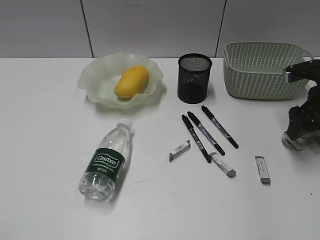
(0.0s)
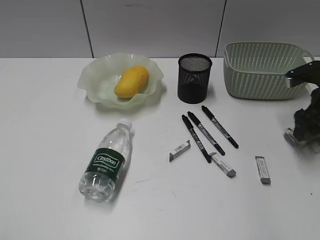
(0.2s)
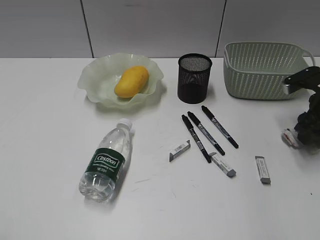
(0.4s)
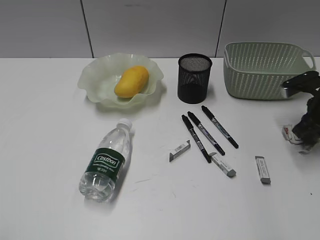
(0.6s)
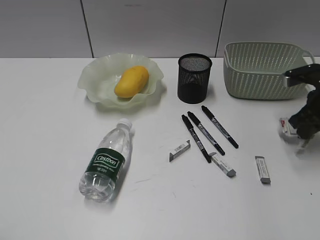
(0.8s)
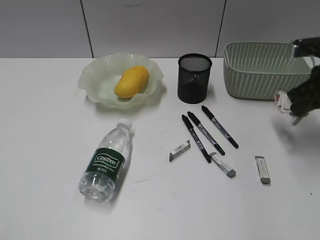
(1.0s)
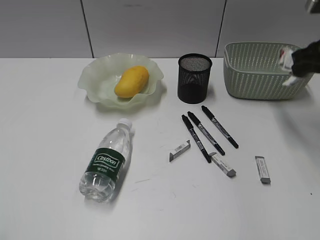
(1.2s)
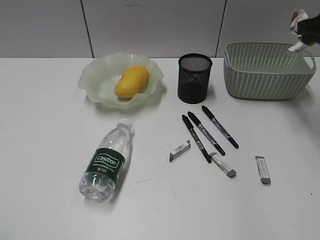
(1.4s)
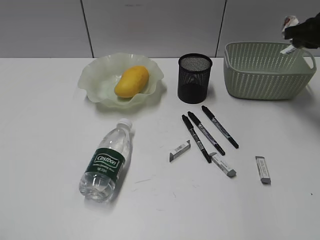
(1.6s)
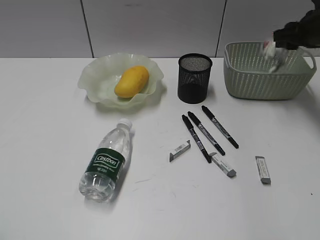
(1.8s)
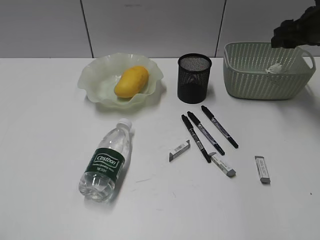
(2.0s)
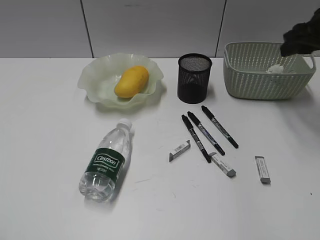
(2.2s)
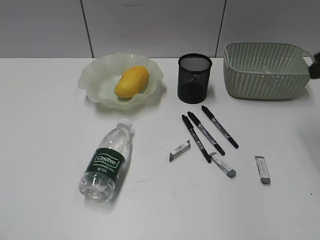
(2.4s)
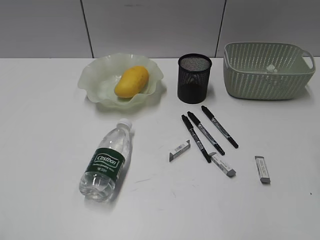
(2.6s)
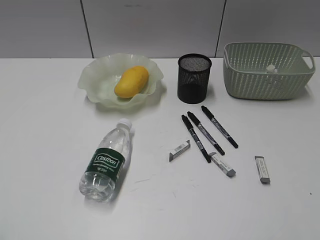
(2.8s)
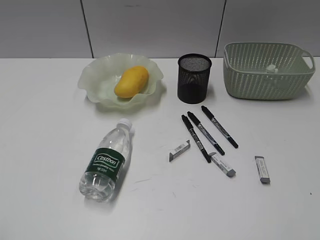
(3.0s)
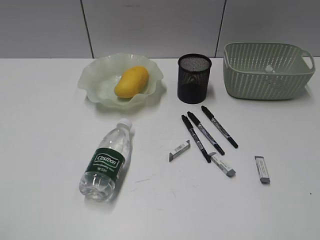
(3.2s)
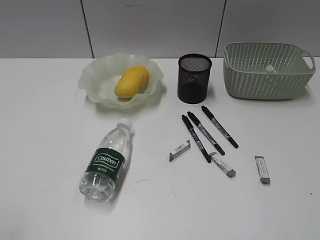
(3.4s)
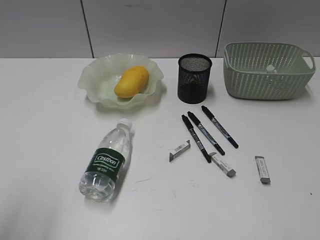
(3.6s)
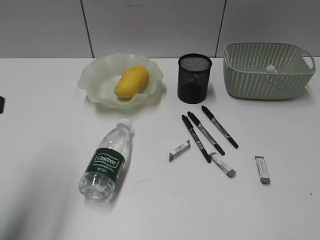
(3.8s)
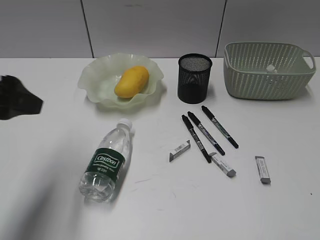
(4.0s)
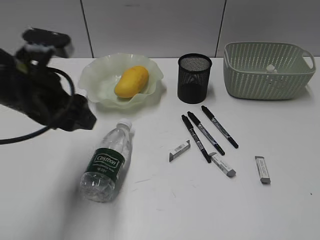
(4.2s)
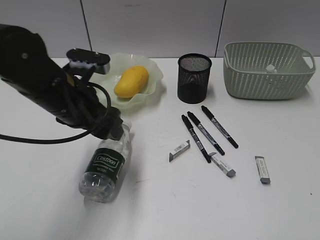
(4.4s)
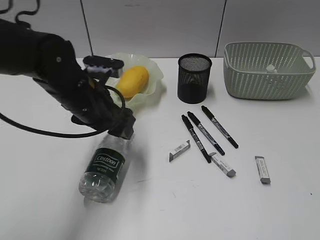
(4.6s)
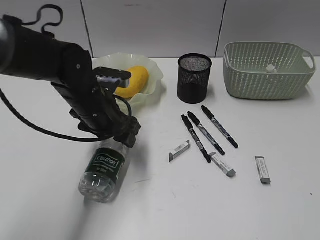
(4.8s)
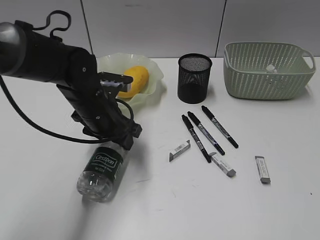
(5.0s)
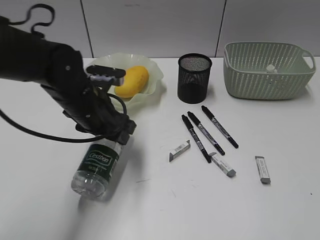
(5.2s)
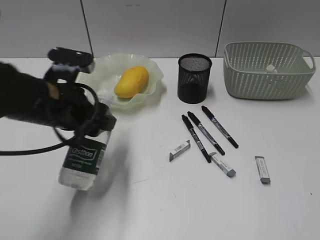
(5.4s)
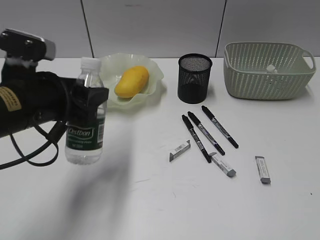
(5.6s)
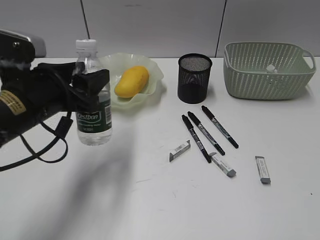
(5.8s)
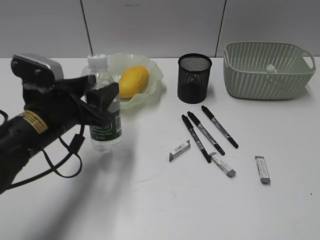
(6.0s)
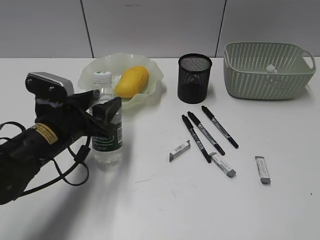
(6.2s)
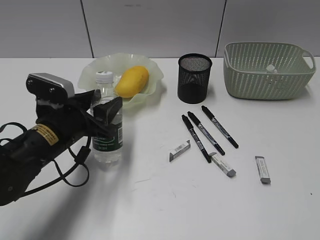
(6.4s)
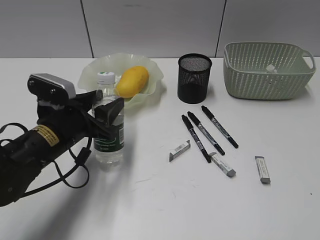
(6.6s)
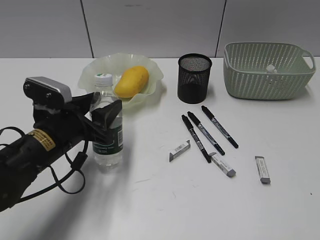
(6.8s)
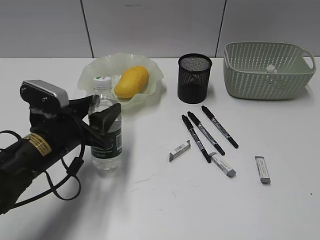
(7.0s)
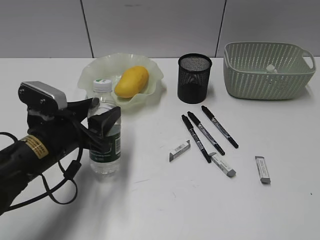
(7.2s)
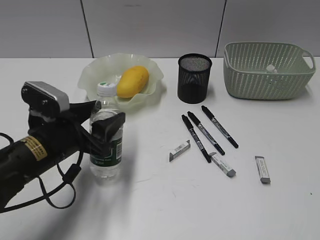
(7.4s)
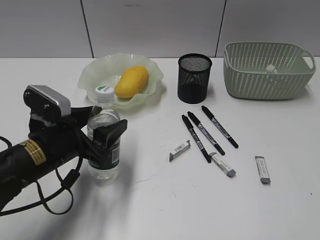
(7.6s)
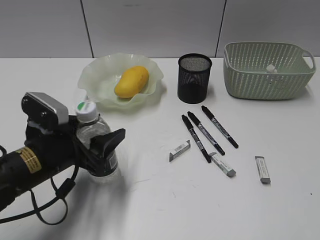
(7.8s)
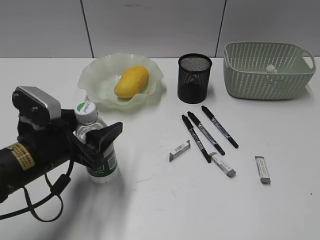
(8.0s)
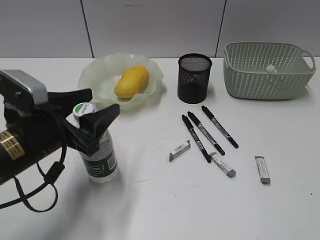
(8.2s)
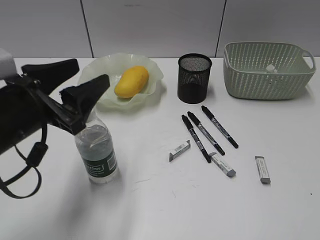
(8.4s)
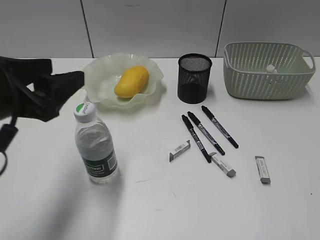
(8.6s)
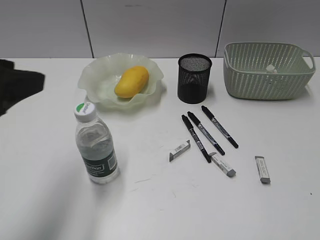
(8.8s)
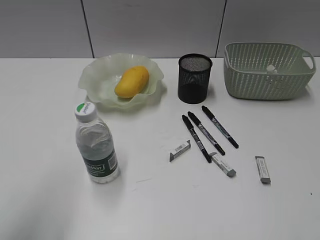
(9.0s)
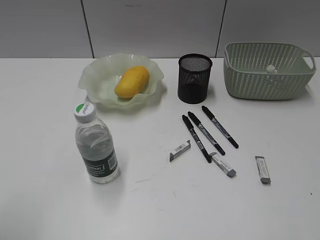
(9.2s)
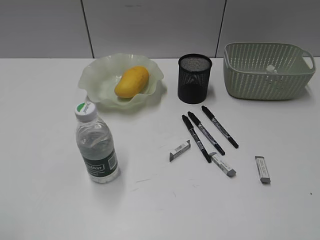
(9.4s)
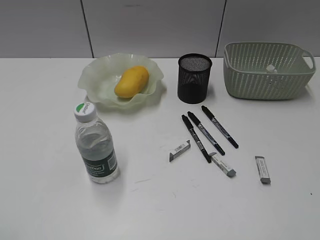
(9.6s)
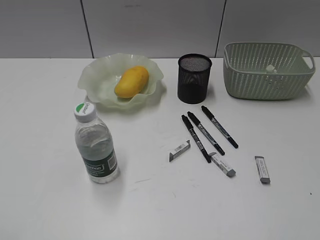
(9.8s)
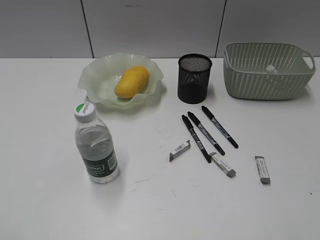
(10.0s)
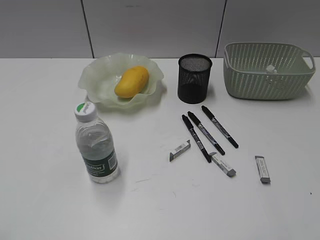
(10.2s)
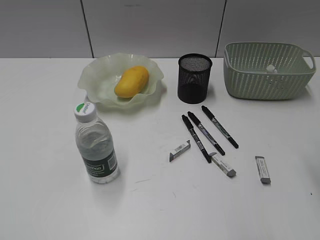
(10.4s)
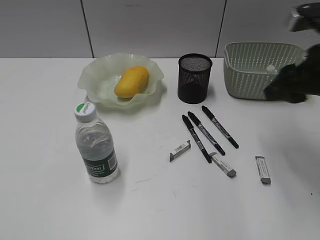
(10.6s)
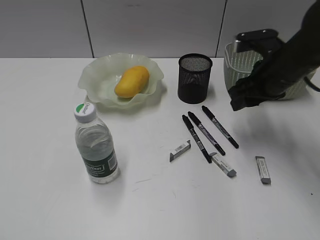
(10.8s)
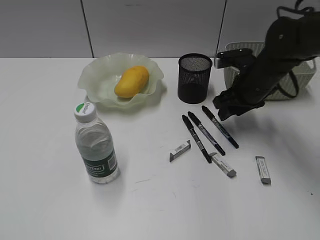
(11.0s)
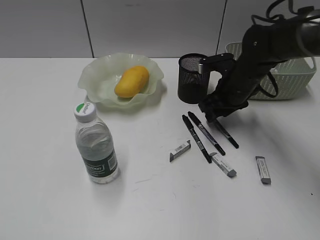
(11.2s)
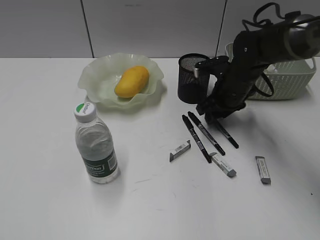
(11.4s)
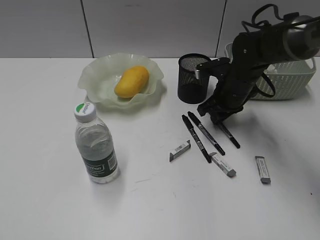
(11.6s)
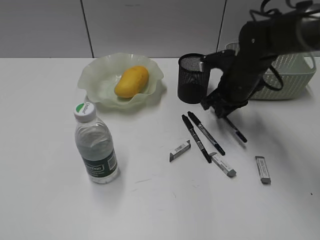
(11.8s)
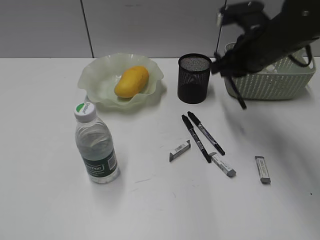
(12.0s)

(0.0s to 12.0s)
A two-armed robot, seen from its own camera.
Step, 0.8s - 1.8s: Place the waste paper in the basket with right gripper.
Step, 2.0s - 4.8s: Grasp the bottle with left gripper.
Step, 5.0s - 8.2s: Stand the bottle with left gripper.
Step, 8.4s - 11.6s: Grasp the black pen with right gripper.
0.0s - 1.6s: The right gripper shifts about 10 cm upward, and closes.
1.6s - 3.0s: The right gripper is displaced backward by some 35 cm, and opens up.
3.0s - 4.4s: The right gripper shifts approximately 5 cm backward; the left gripper moves forward and to the right, about 35 cm, and opens.
4.4s - 6.0s: The left gripper goes forward and returns, approximately 5 cm each way.
6.0s - 7.6s: The grippers move only a little.
7.6s - 9.0s: The left gripper goes approximately 25 cm upward, backward and to the left.
9.0s - 10.4s: The left gripper heads backward and to the left, covering approximately 15 cm.
10.4s - 12.0s: The right gripper is displaced forward, to the left and downward by roughly 25 cm, and closes its fingers.

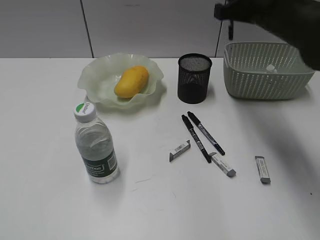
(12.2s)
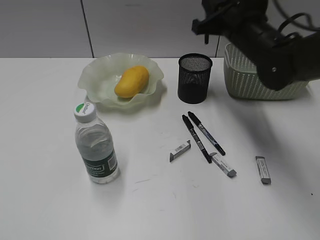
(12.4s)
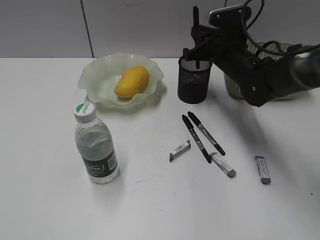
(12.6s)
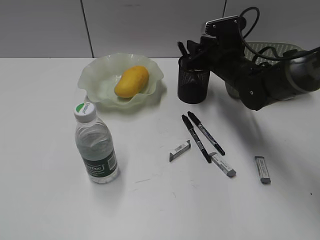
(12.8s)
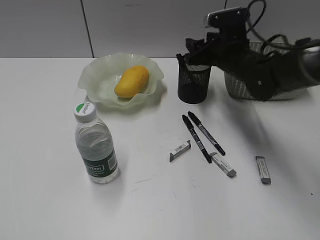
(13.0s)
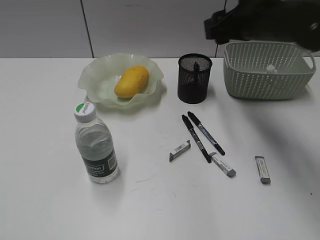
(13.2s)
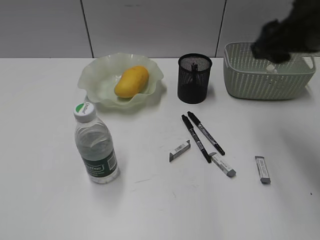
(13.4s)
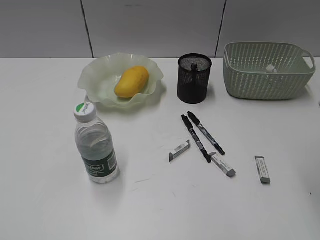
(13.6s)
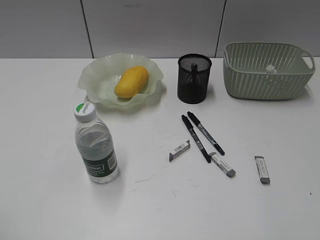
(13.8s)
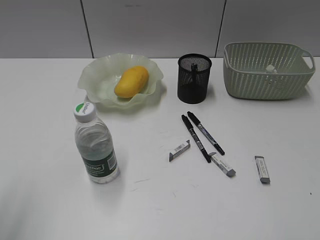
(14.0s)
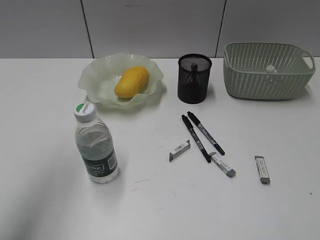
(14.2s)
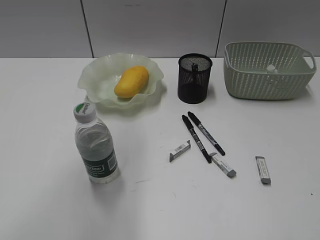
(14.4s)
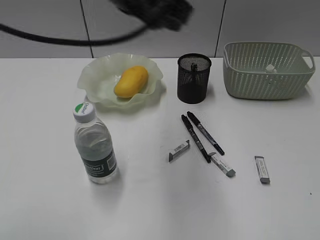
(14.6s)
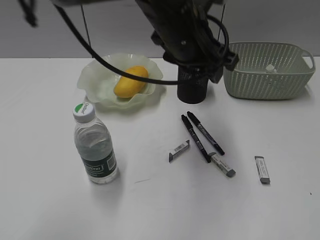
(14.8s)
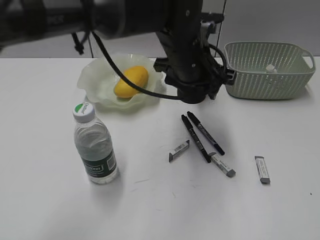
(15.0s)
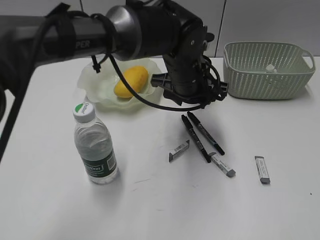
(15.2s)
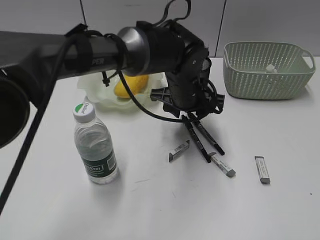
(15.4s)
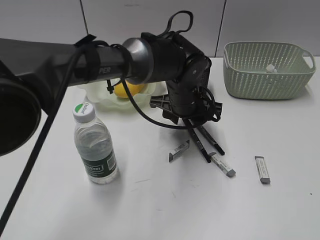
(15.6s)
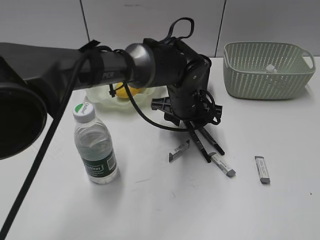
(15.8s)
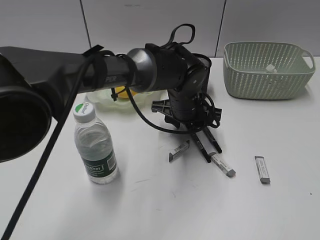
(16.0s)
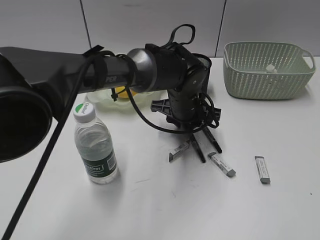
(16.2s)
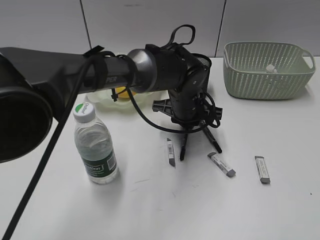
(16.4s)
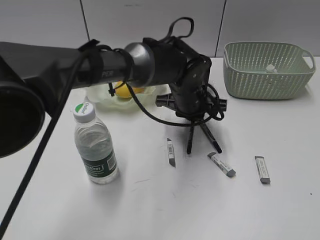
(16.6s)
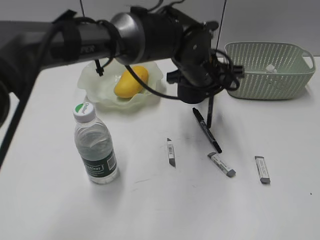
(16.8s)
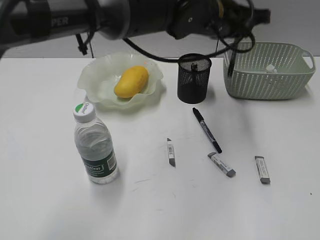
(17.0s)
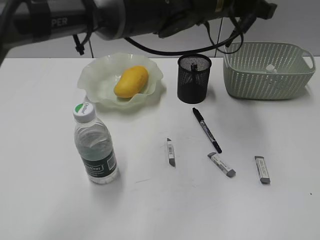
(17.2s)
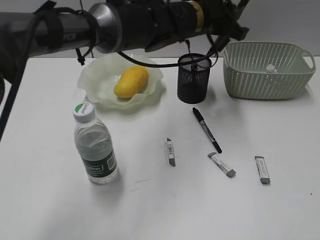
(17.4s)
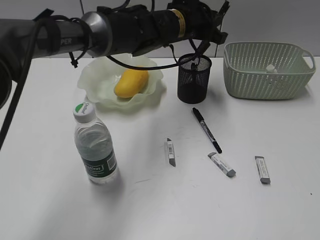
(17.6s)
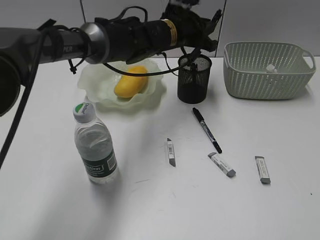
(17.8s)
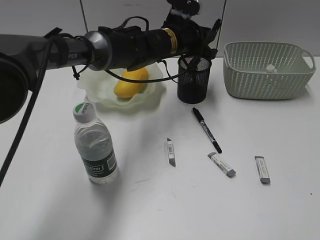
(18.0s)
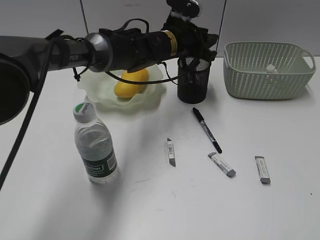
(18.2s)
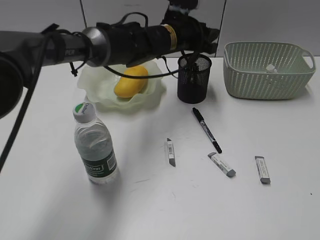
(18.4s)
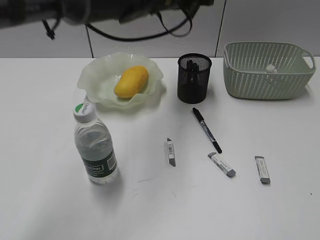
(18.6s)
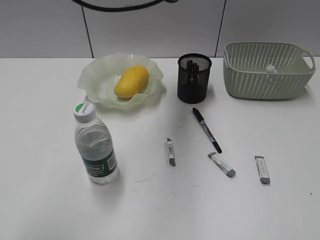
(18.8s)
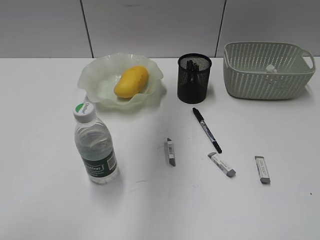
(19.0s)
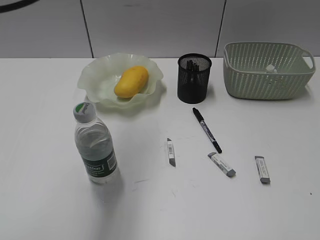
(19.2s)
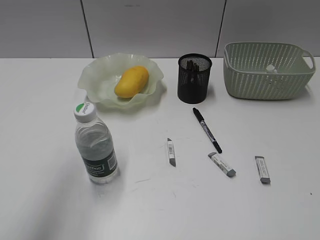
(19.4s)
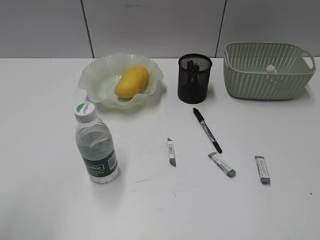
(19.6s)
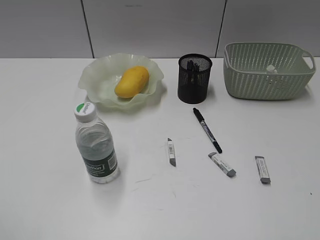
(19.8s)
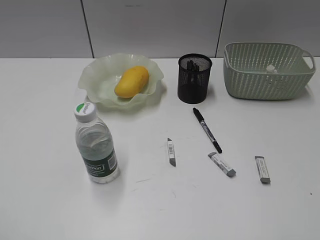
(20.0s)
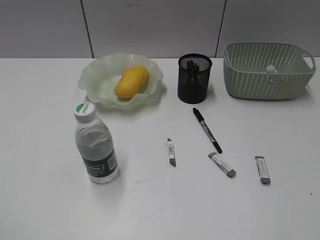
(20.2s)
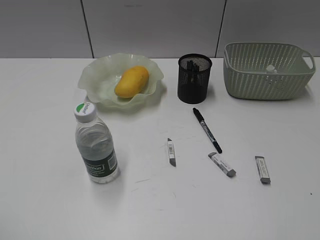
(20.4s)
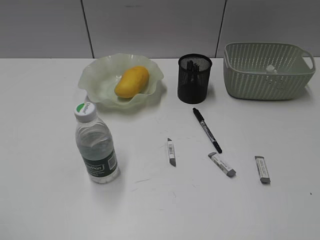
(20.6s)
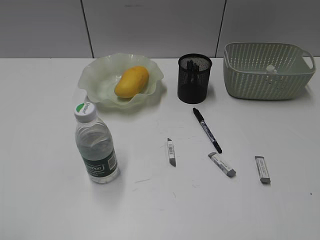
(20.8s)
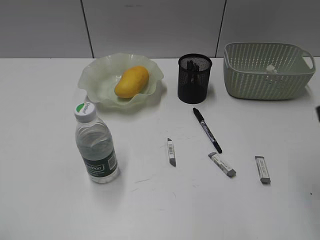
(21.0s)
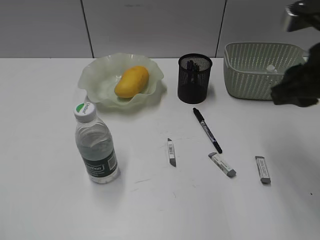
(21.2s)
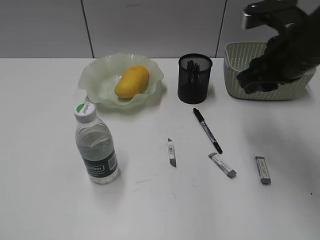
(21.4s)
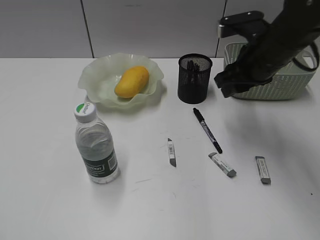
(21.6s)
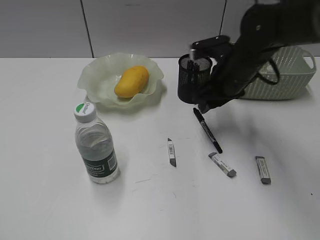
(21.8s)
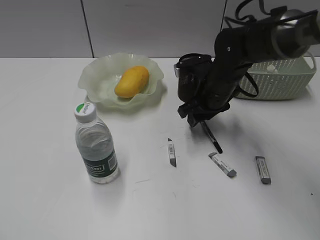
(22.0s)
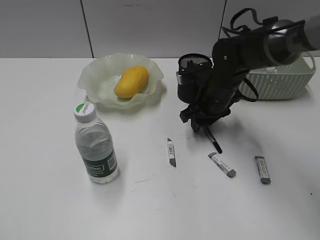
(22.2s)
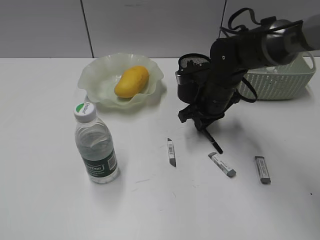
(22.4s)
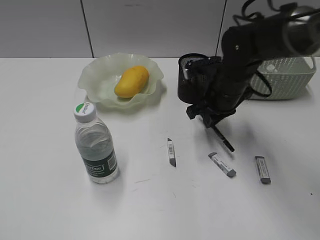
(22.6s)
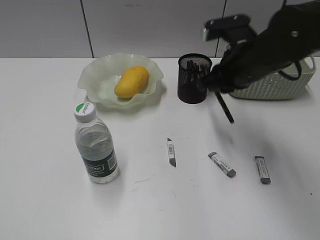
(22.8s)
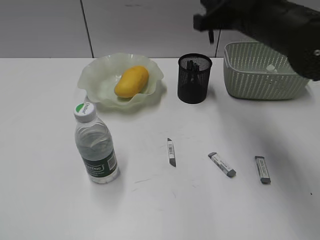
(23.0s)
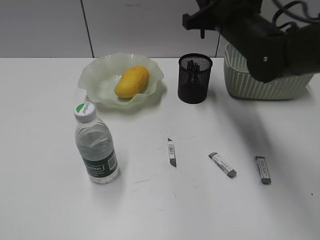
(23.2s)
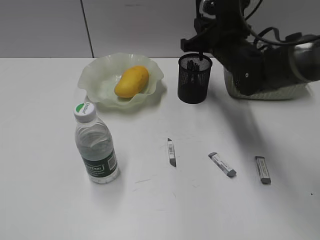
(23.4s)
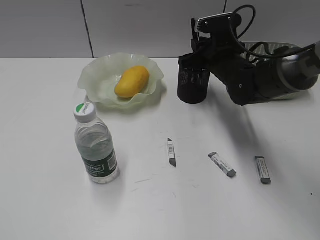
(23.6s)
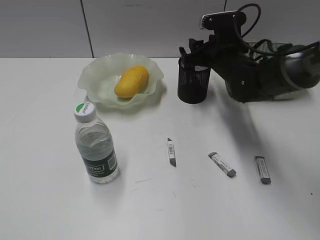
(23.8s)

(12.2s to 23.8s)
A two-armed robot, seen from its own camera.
Step, 12.2s - 12.8s: Place the black pen in pen holder with right gripper.
Step, 13.0s - 16.4s: Grasp the black pen with left gripper.
Step, 16.6s - 18.4s: Place the black pen in pen holder with left gripper.
Step, 18.6s - 22.4s: Grasp the black pen with right gripper.
Step, 22.6s - 23.8s: Place the black pen in pen holder with right gripper.
12.2s - 13.6s: The right gripper is displaced backward and to the right by about 15 cm, and opens up.
13.6s - 15.0s: The right gripper travels backward by roughly 20 cm. Meanwhile the left gripper moves to the right and forward, about 50 cm, and opens its fingers.
15.0s - 16.6s: The left gripper moves downward, some 10 cm, and closes up.
16.6s - 18.0s: The left gripper is displaced forward by some 10 cm, and travels upward and back again, some 15 cm each way.
18.0s - 19.4s: The left gripper goes approximately 40 cm backward, to the left and upward, and opens its fingers.
19.4s - 21.0s: The left gripper travels backward, to the left and downward by approximately 20 cm, while the right gripper heads forward and to the left, covering approximately 15 cm.
21.0s - 22.4s: The right gripper heads forward, downward and to the left, covering roughly 35 cm.
22.4s - 23.8s: The right gripper reaches some 15 cm upward, then returns, and opens its fingers.
